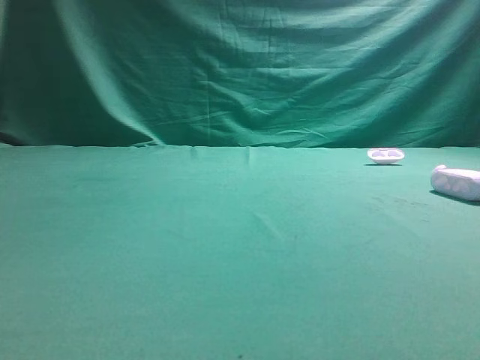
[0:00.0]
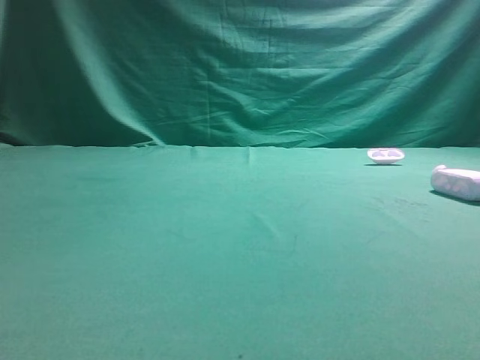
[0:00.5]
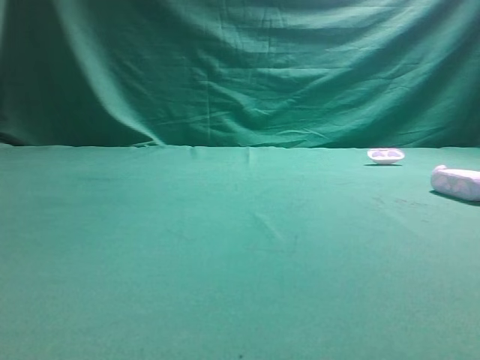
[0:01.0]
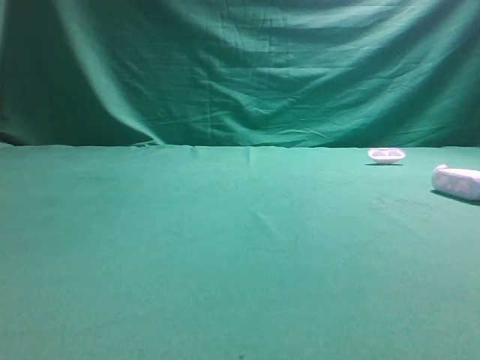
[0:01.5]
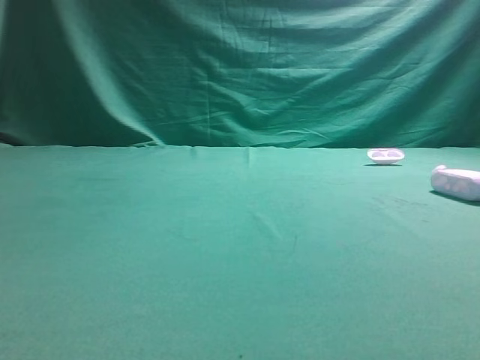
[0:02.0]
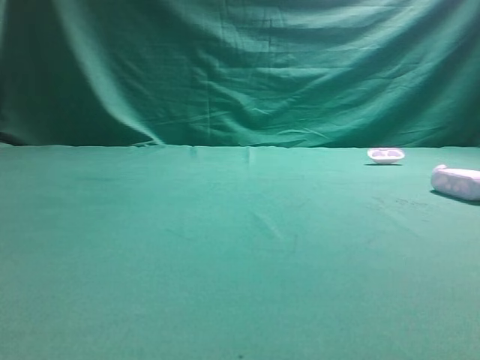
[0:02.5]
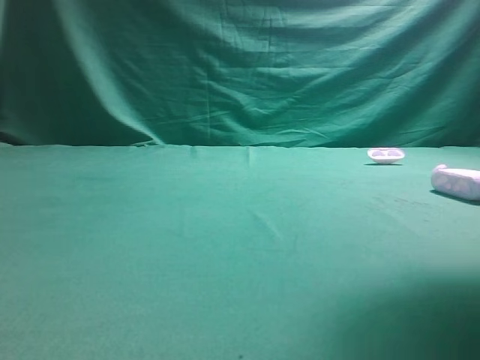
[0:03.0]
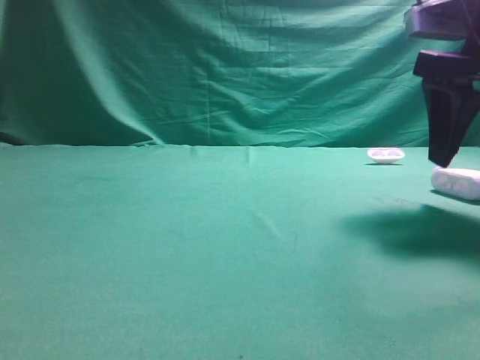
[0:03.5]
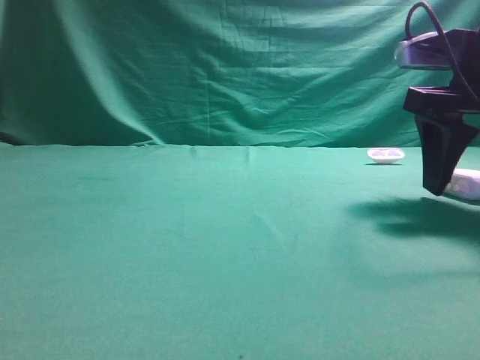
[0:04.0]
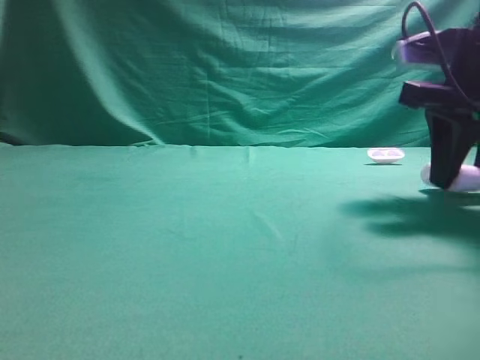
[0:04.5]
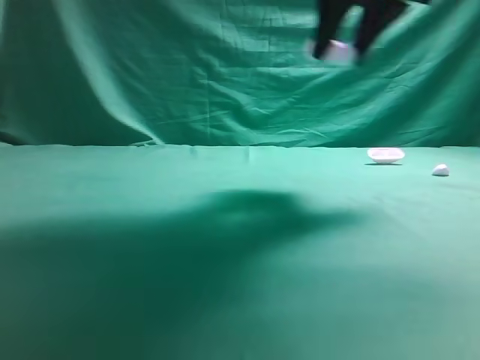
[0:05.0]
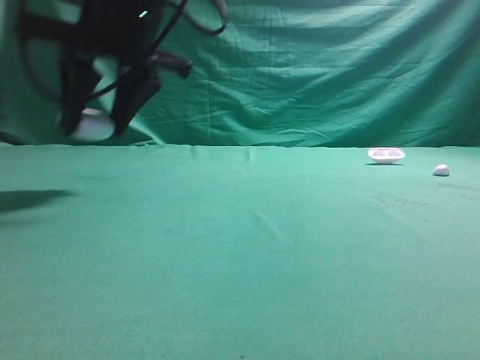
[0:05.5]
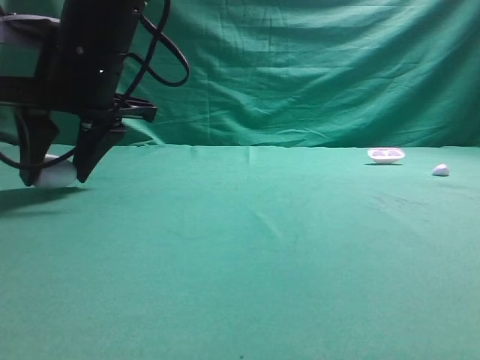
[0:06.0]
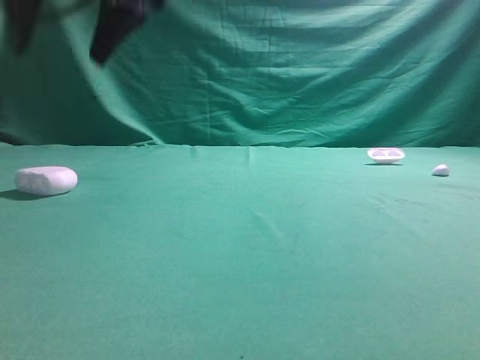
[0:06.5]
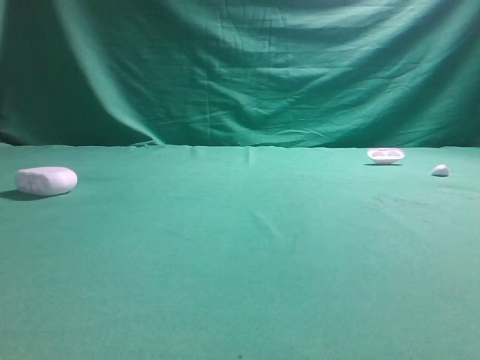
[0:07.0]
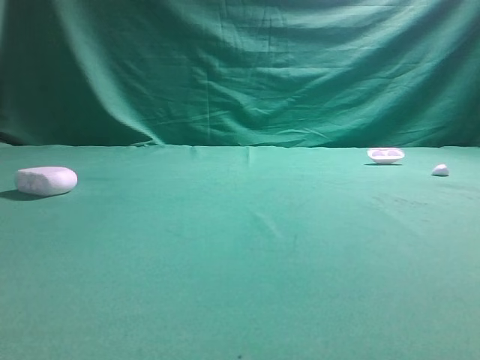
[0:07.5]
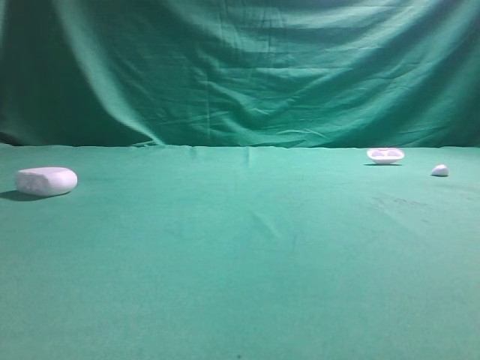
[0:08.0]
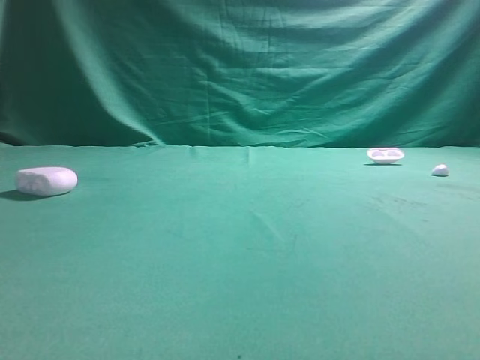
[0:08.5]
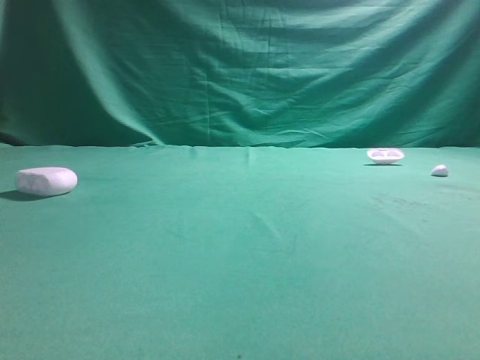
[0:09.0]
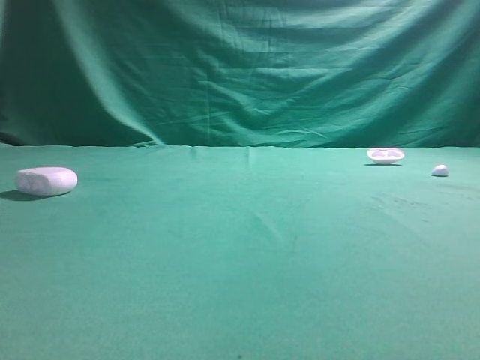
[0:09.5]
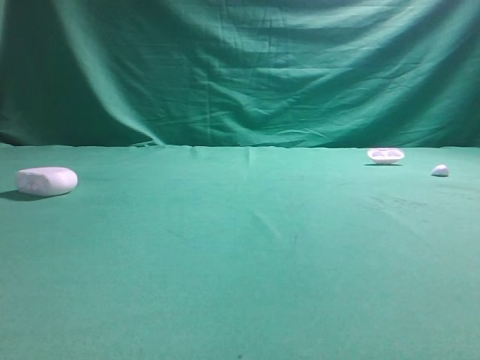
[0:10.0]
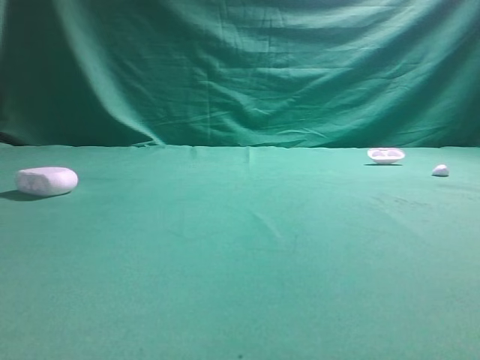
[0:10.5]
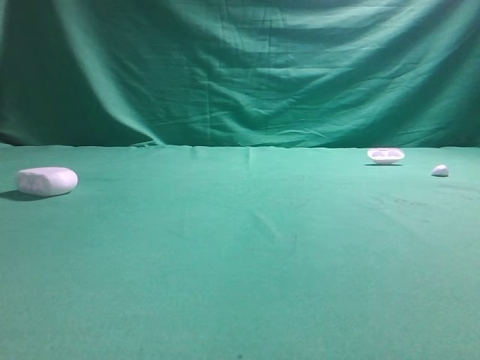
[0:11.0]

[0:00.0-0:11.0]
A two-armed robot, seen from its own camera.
Step, 0:00.0 to 0:04.5: Grasp the Bluetooth earphone case.
Step, 0:05.0 to 0:06.0: Place bluetooth earphone case on the left side of the table.

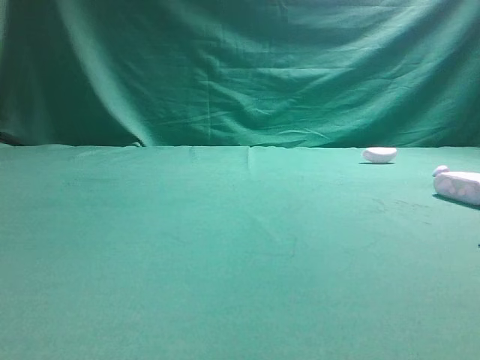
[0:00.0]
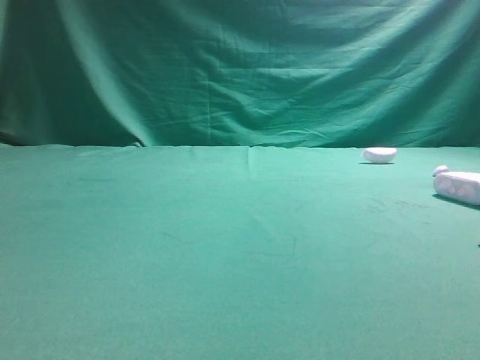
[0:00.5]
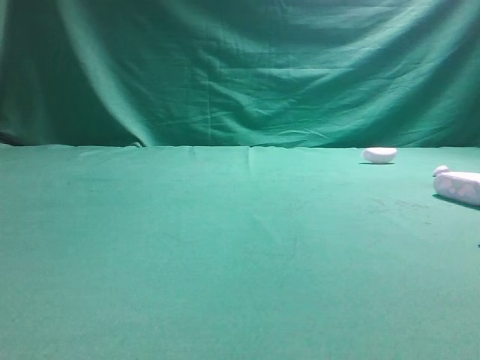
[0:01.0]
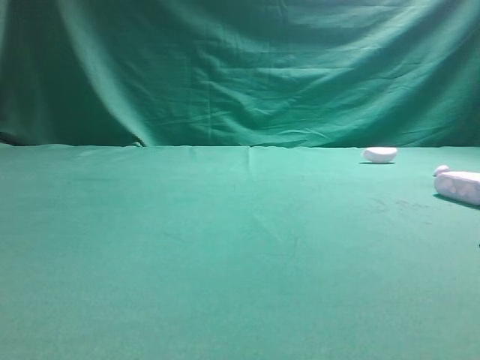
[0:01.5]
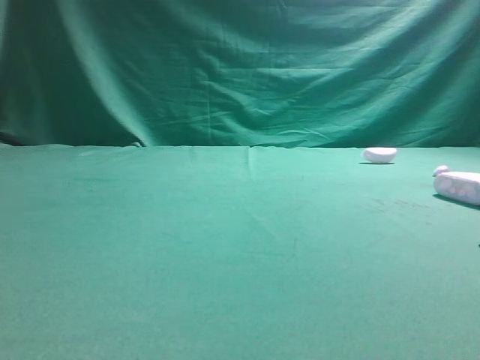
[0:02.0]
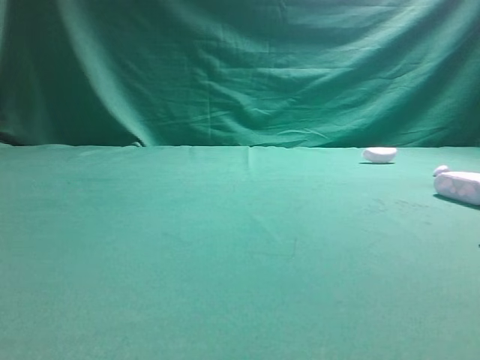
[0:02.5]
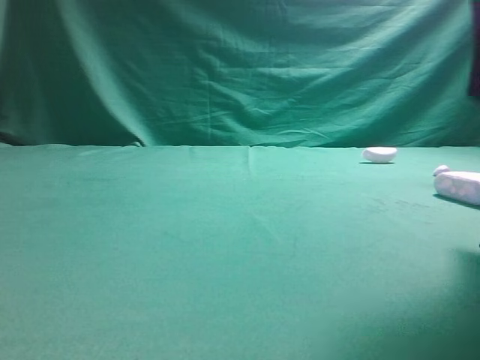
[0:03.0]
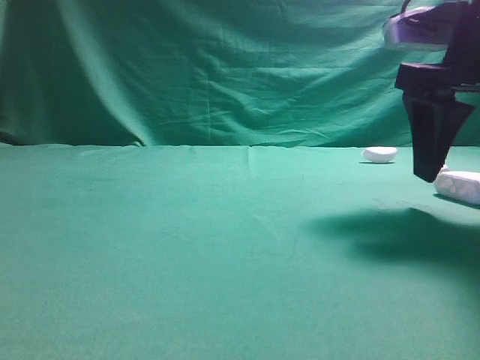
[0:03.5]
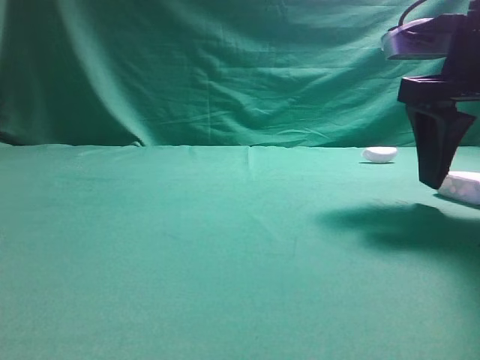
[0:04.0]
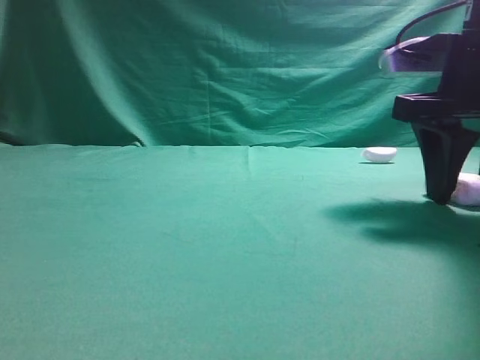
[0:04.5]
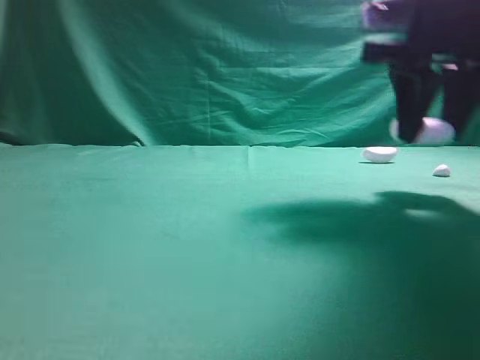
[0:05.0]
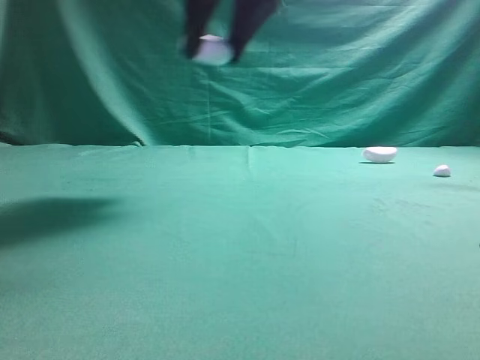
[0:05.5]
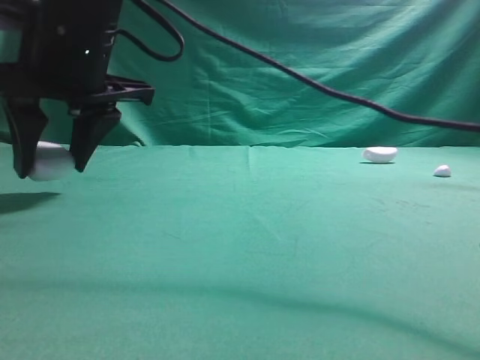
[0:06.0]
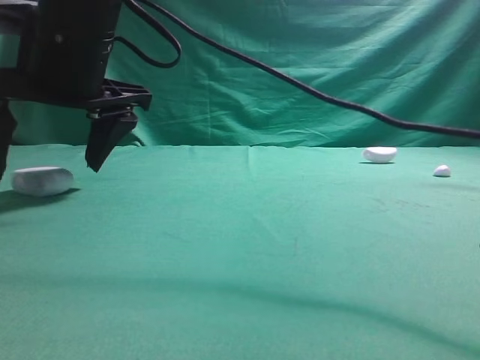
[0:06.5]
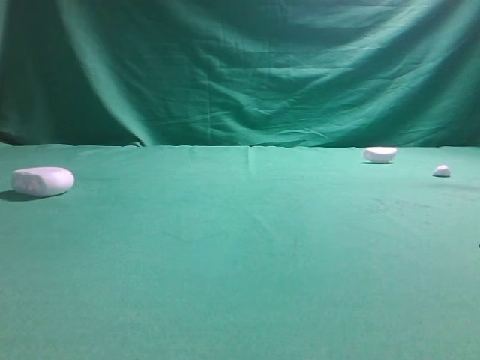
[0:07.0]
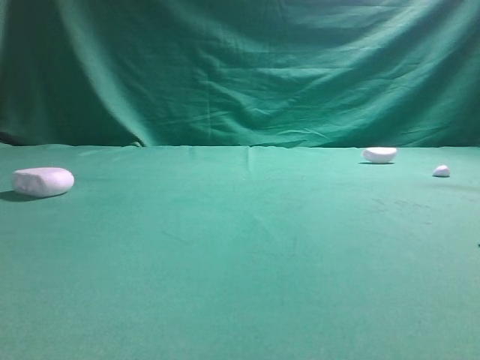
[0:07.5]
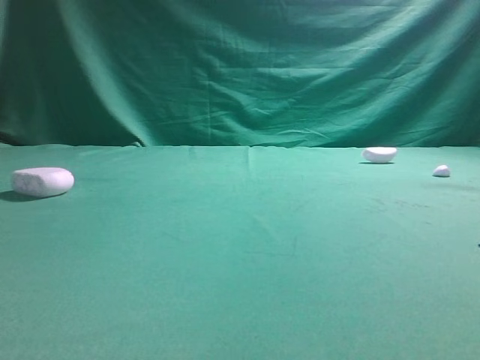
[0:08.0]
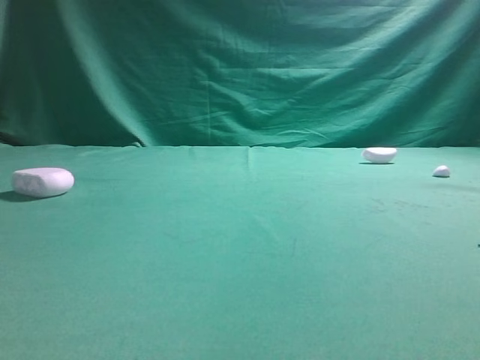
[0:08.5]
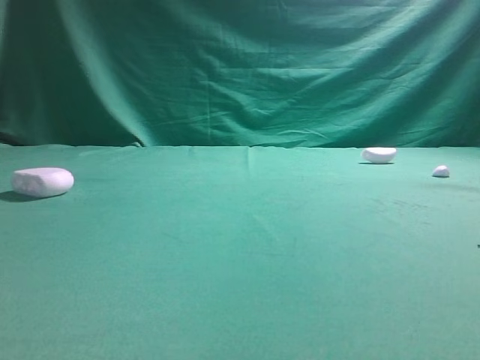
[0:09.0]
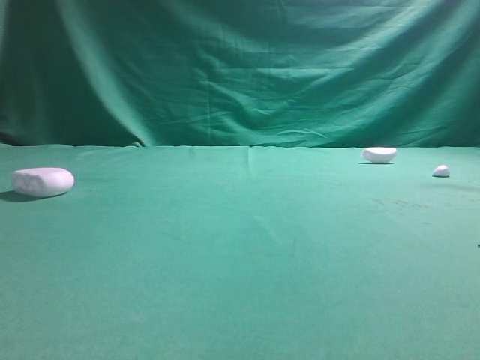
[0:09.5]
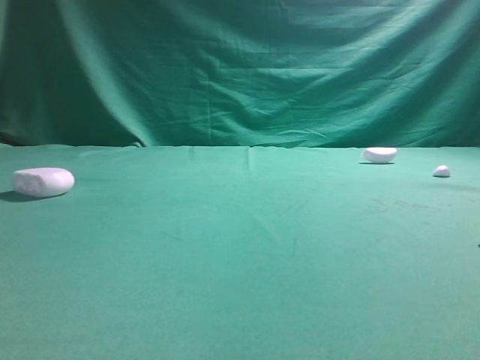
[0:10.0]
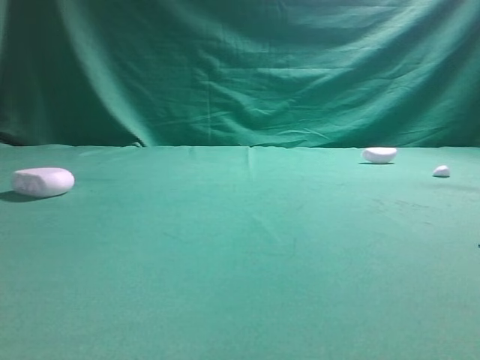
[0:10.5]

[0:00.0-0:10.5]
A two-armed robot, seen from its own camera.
Step, 0:00.0 to 0:03.5: Grasp the Bluetooth earphone case.
Step, 0:04.0 to 0:06.0: Place bluetooth earphone case on the left side of the table.

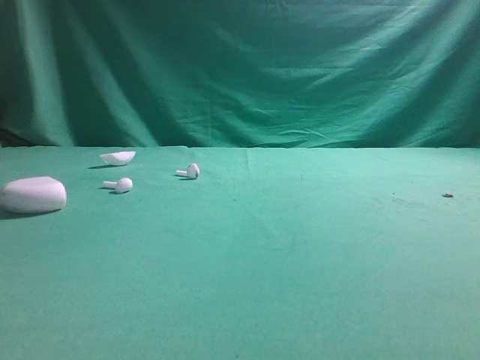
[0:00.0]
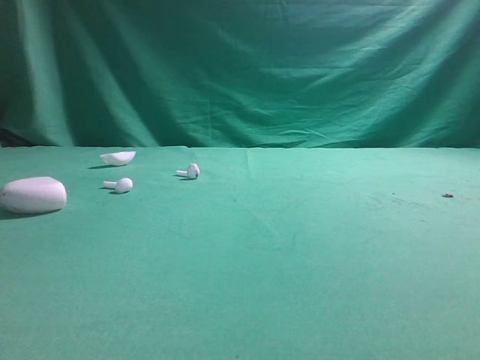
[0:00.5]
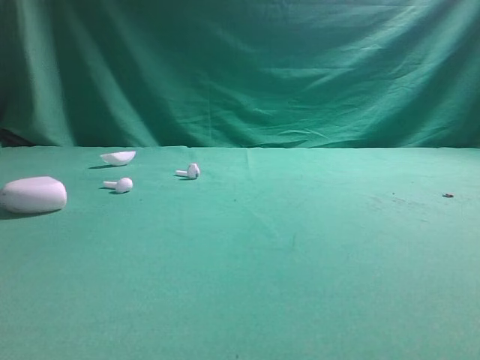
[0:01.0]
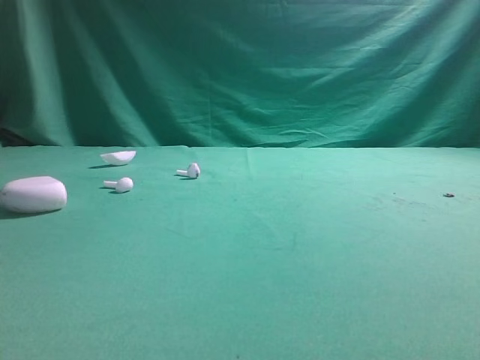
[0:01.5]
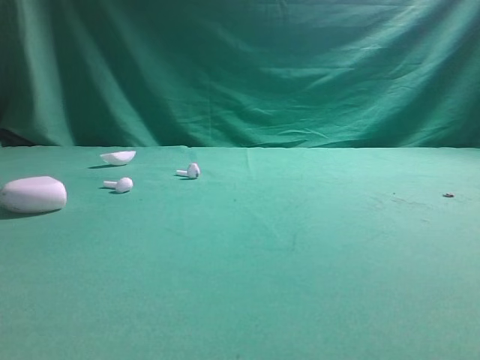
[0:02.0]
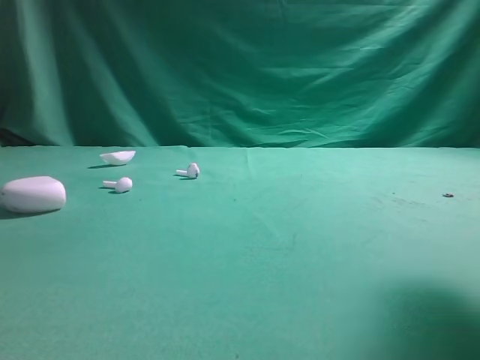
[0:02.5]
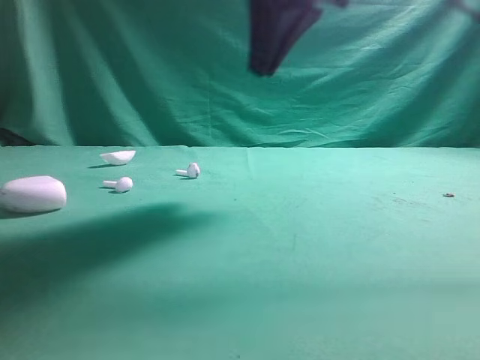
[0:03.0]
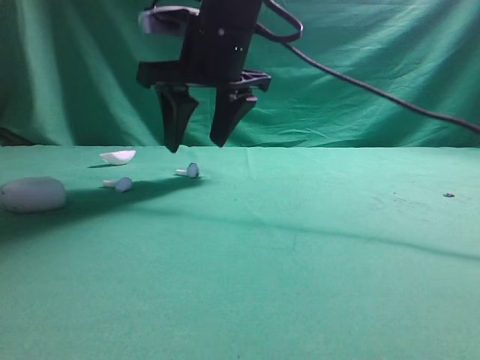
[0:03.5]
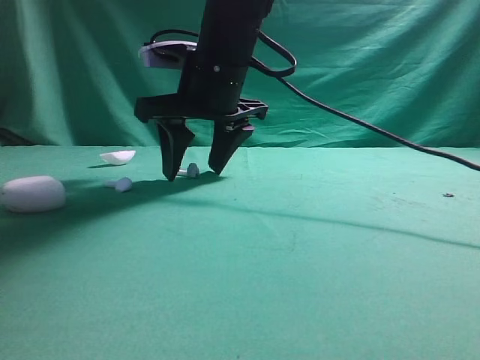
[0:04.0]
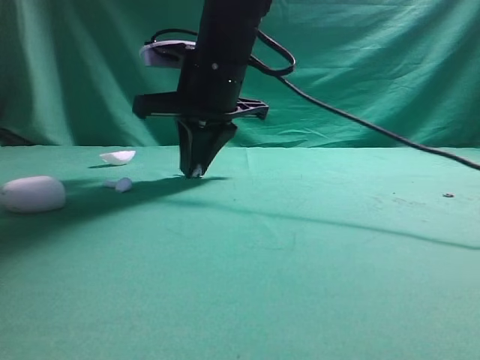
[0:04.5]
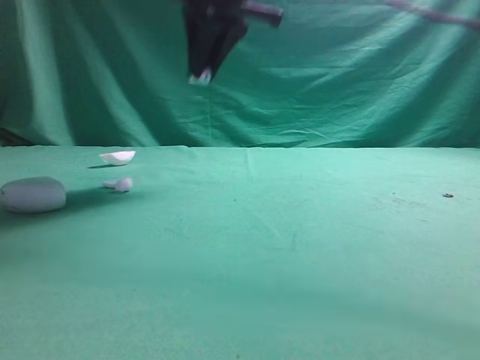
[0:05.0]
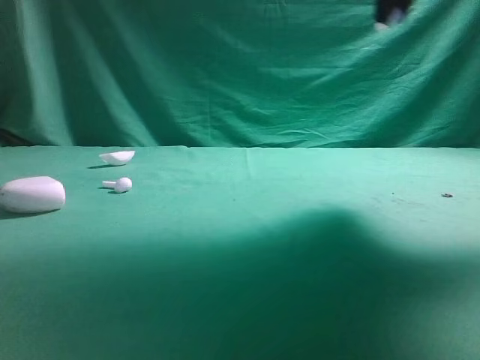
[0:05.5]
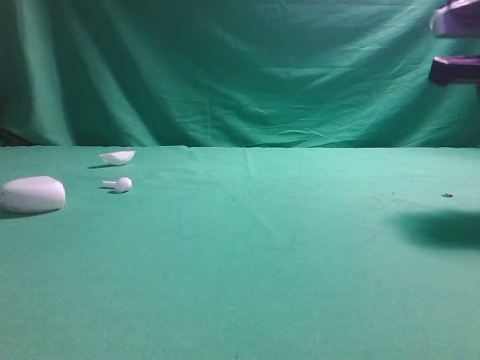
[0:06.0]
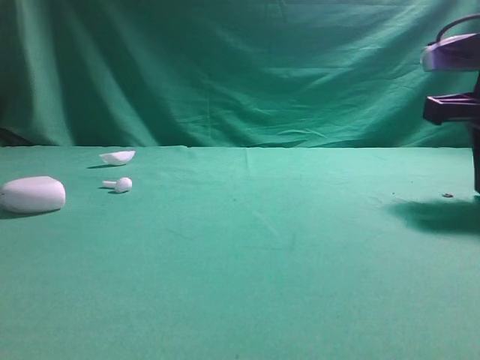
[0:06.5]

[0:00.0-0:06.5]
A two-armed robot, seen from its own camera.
Step, 0:00.0 to 0:05.0: Grasp the Bluetooth earbud.
